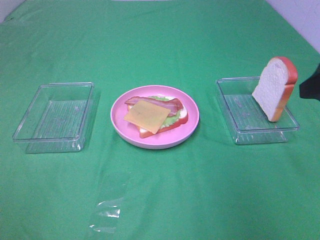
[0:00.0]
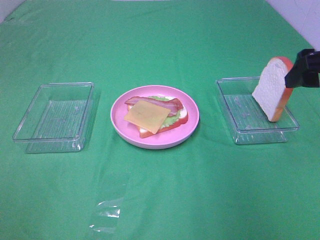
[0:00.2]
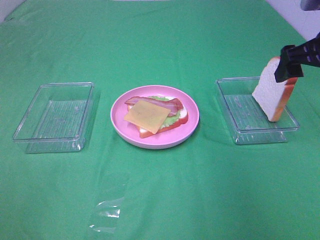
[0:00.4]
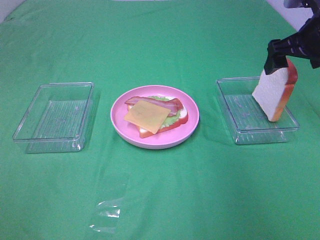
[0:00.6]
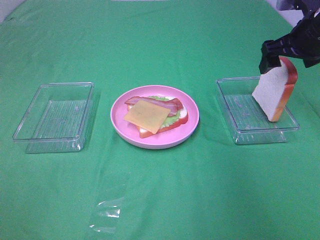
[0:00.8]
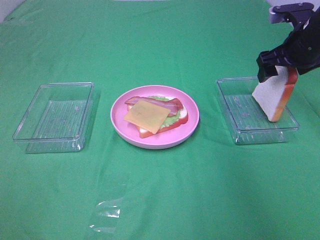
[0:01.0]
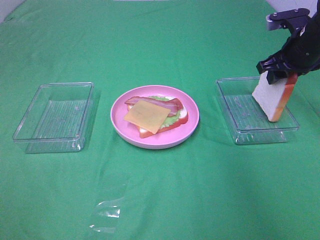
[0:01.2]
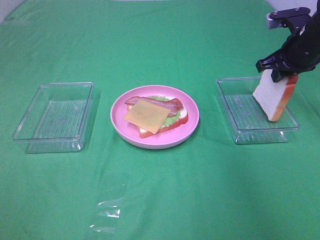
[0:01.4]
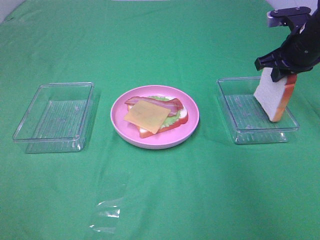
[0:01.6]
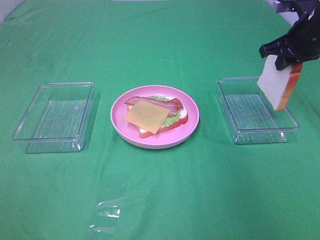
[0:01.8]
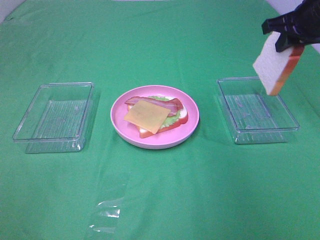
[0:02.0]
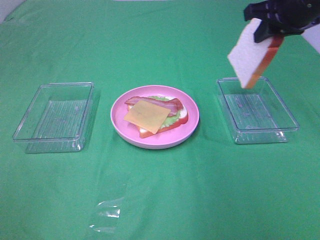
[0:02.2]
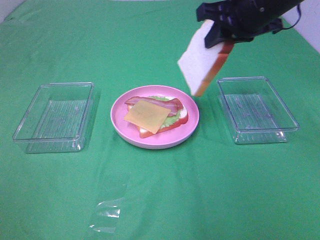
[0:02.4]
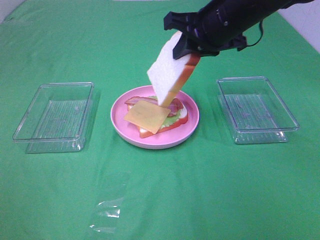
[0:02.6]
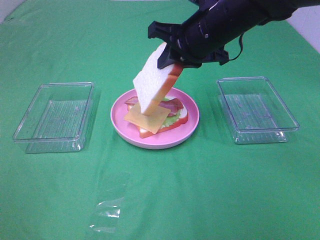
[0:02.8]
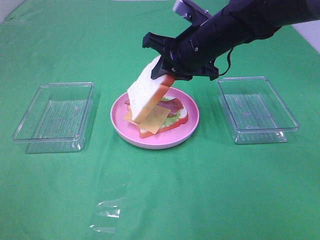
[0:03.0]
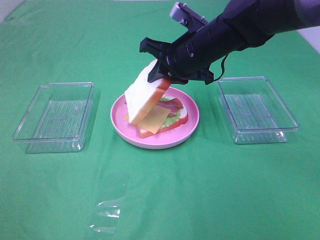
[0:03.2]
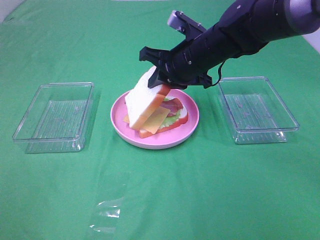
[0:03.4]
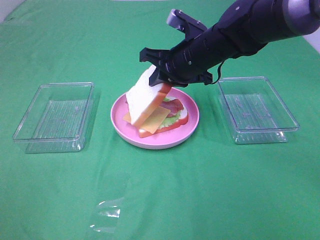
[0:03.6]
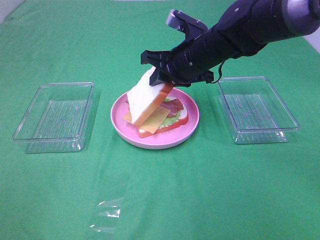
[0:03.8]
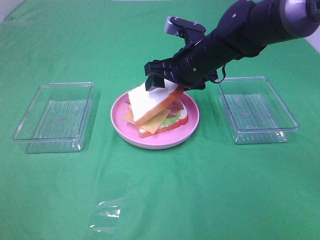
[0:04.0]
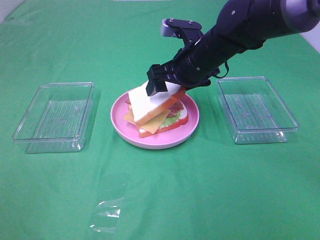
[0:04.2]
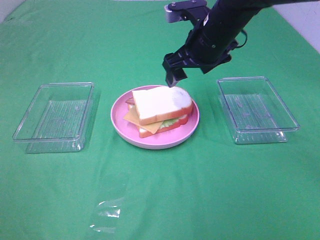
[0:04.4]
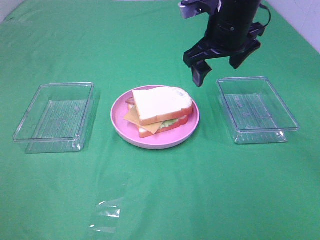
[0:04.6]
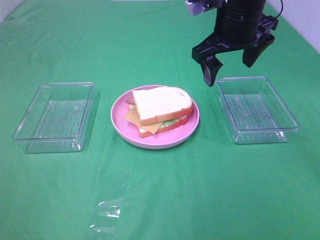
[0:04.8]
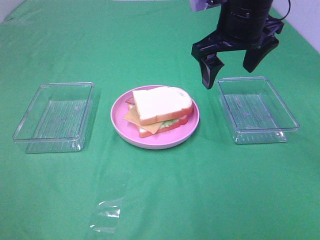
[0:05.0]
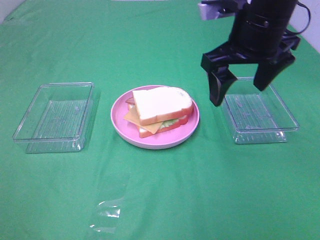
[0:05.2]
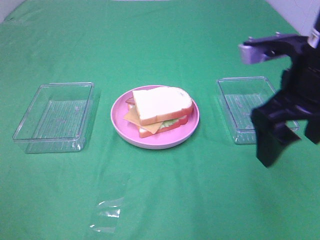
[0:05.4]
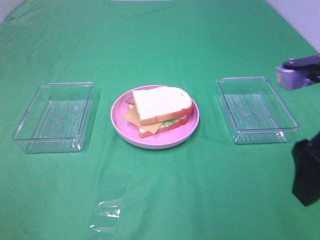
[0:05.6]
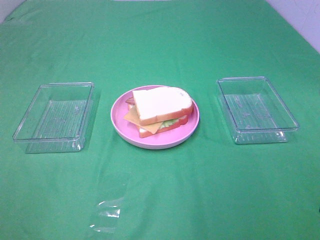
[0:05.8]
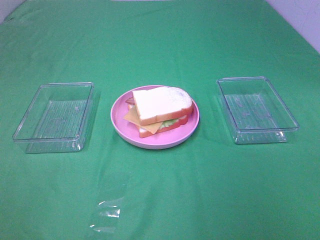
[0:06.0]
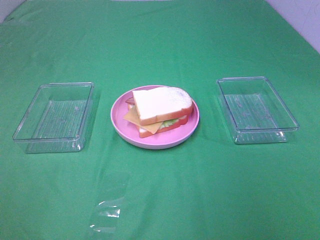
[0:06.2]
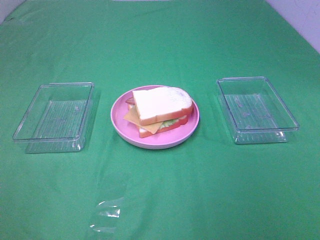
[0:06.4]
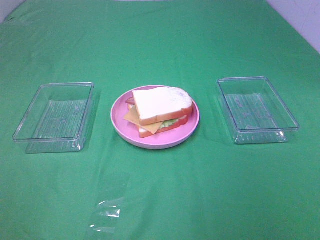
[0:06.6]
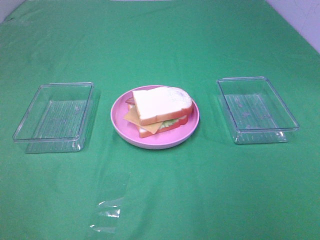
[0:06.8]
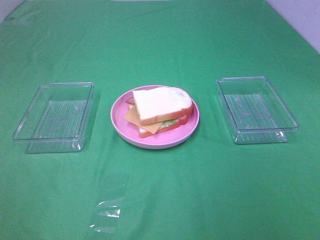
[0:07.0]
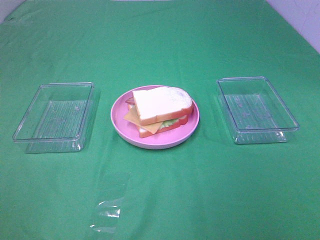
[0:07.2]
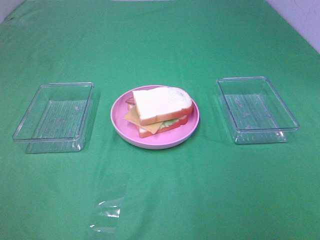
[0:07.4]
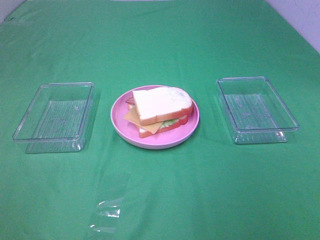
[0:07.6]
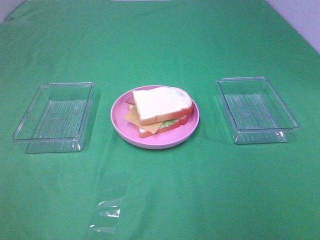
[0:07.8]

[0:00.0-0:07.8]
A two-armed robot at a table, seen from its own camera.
Task of the whole recording: Make sandwiches.
Step, 1.6 to 4.4 s: Right hand:place the bread slice on the cheese slice.
0.0 to 1.6 s: The right gripper moves forward, some 20 cm, and closes its fingers.
1.6 to 3.2 s: The right gripper moves to the left, about 20 cm.
3.2 to 4.6 s: The right gripper moves upward, approximately 5 cm, and opens its fingers.
4.6 to 6.2 s: The right gripper moves backward and to the right, roughly 40 cm.

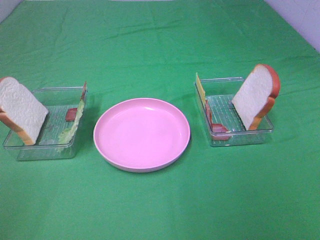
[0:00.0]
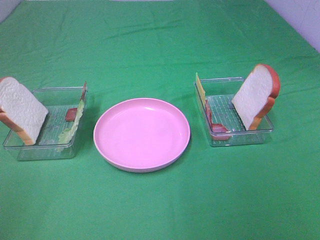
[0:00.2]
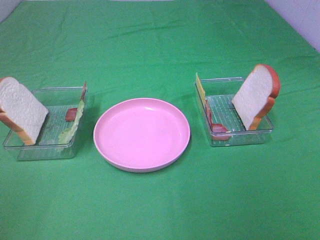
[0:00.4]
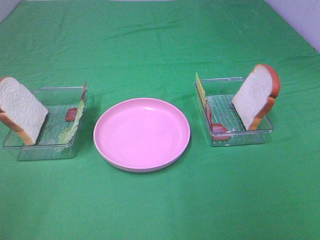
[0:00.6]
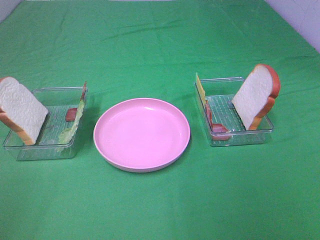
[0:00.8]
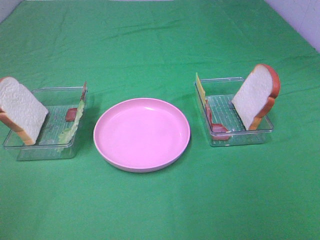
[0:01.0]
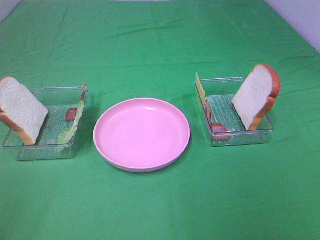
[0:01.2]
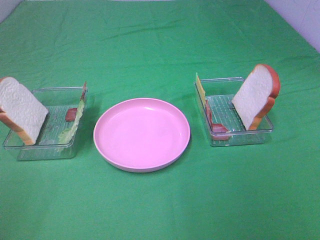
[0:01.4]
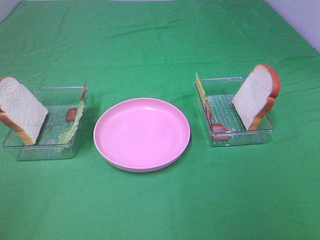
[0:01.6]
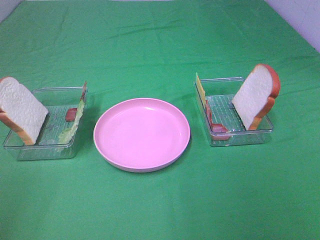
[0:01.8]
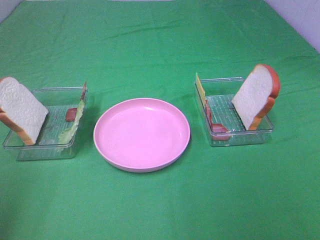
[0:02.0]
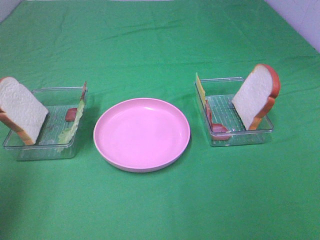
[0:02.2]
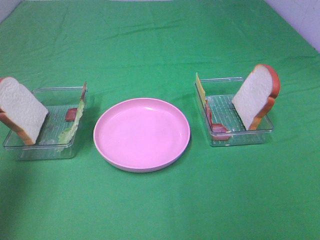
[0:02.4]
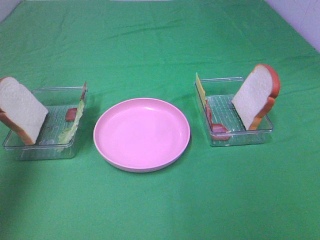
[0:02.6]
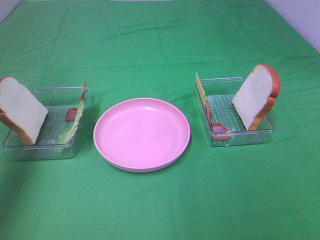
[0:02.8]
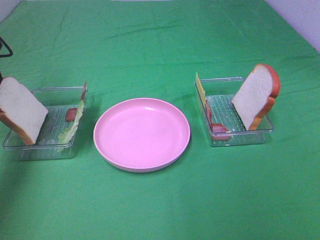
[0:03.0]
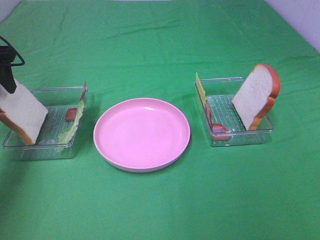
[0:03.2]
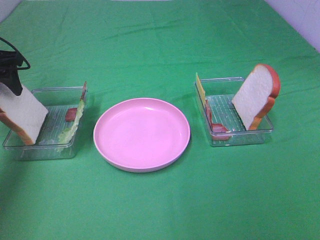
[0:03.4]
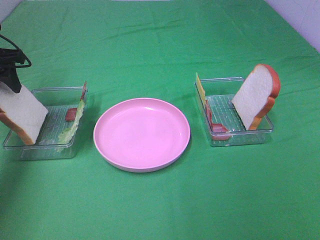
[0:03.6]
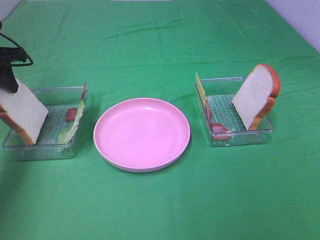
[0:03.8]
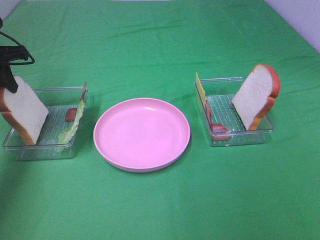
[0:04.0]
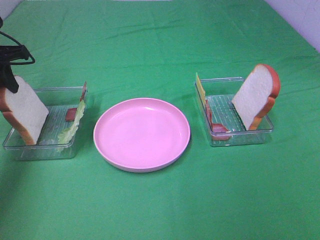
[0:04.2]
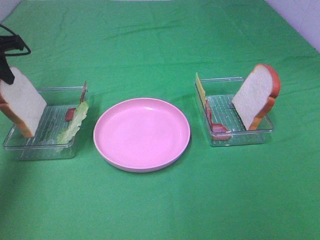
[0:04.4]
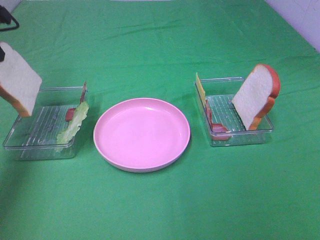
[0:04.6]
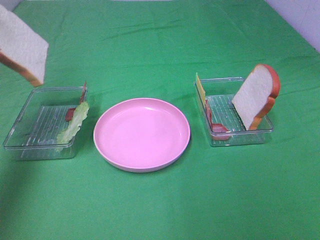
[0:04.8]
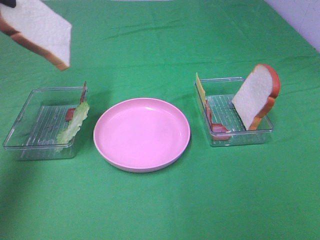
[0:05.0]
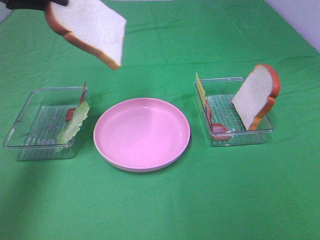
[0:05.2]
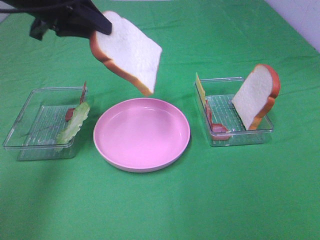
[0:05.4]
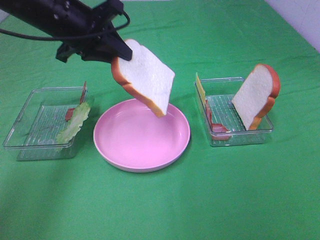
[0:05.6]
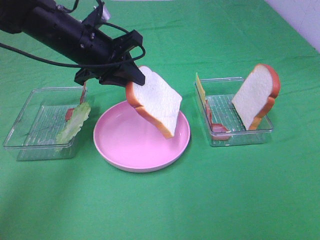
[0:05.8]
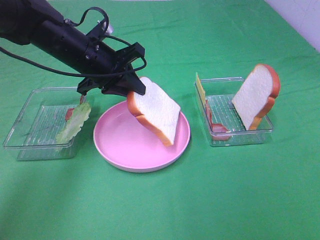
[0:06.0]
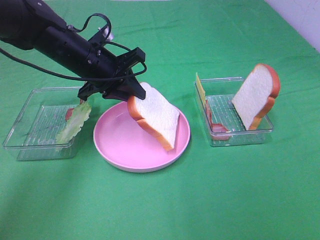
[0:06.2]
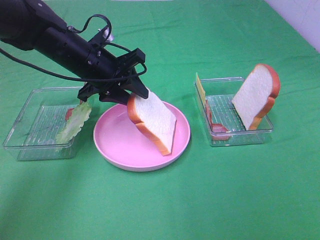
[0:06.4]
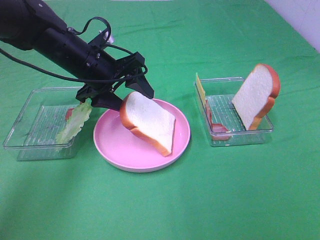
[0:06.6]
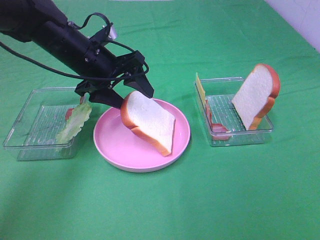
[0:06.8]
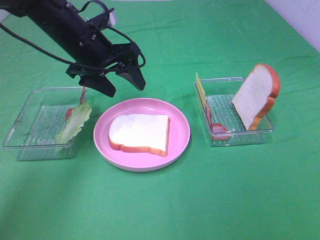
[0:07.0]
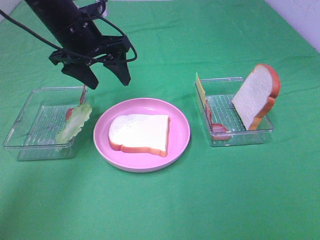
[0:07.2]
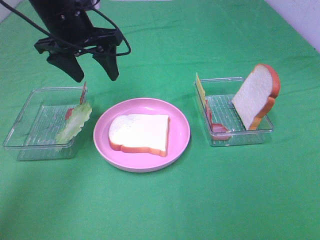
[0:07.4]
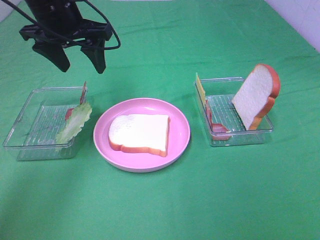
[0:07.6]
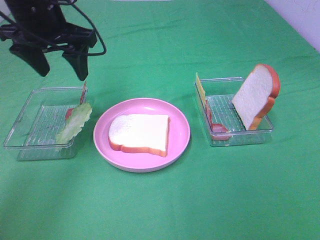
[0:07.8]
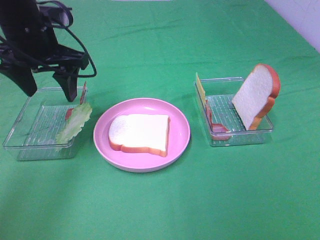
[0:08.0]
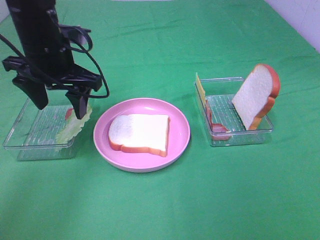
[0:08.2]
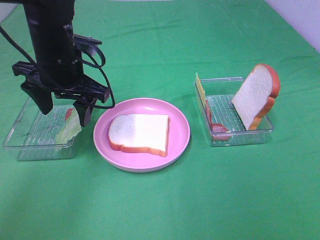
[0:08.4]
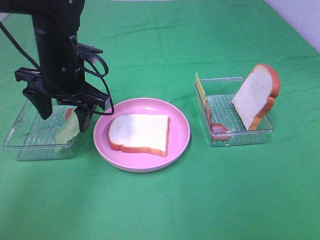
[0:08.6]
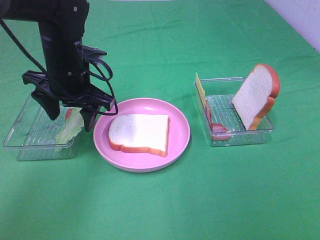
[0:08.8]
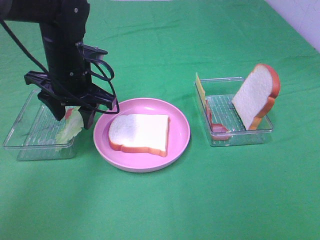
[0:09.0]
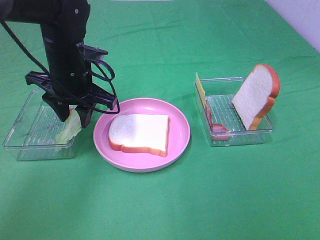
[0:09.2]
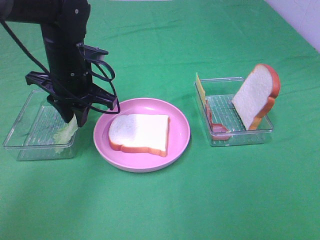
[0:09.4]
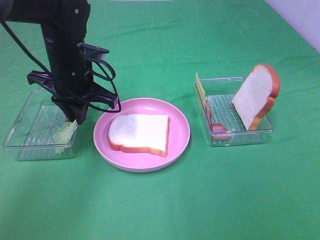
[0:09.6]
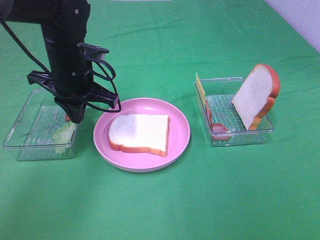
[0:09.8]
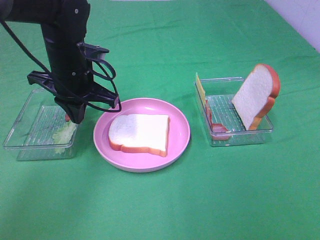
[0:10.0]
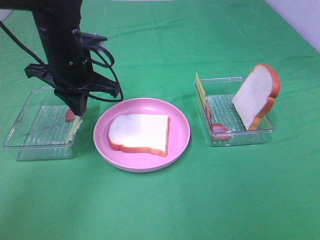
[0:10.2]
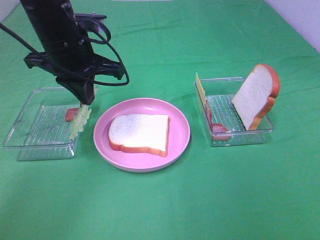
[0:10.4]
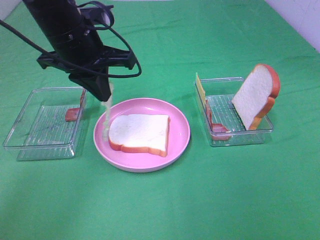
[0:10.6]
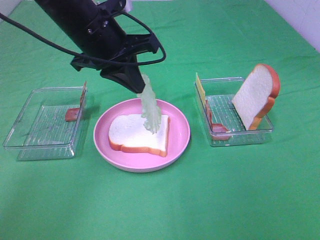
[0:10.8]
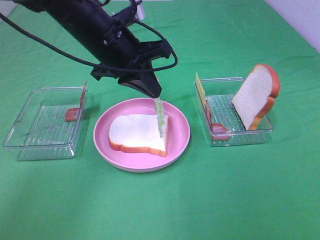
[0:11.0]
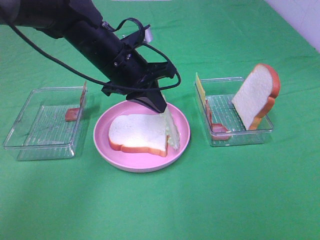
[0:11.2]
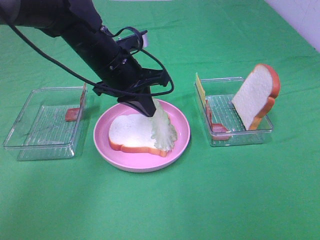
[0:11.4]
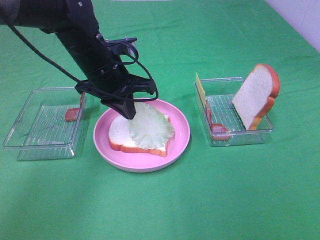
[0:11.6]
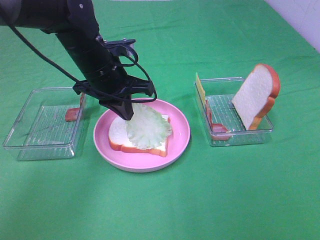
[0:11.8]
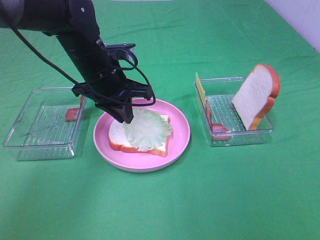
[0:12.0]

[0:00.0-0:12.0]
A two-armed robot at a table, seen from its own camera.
Task of the whole recording: Make sandwiches.
Step, 0.0 to 4.2 s: Left hand:grab the bread slice.
Step, 4.4 to 7.0 s: Left hand:place the bread slice on the plate.
Step, 7.2 to 10.0 s: Left hand:grab the lettuce slice.
0.0 to 1.6 s: The two grippers keep their place.
1.6 to 3.0 s: The left gripper goes approximately 35 cm forward.
3.0 to 4.4 s: The left gripper closes up.
4.4 to 6.0 s: The left gripper heads to the right, covering roughly 20 cm.
6.0 to 7.6 s: The left gripper goes some 10 cm upward, and opens.
7.6 to 9.0 s: The left gripper shifts roughly 10 cm downward.
9.0 to 10.4 s: The left gripper moves upward, roughly 5 cm, and closes its fingers.
10.4 to 12.0 s: The left gripper is displaced downward by roughly 5 cm.

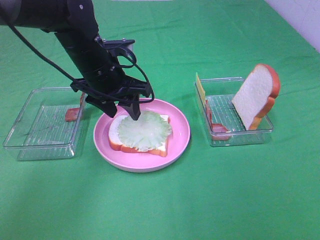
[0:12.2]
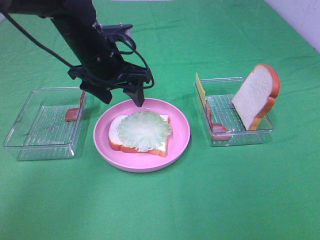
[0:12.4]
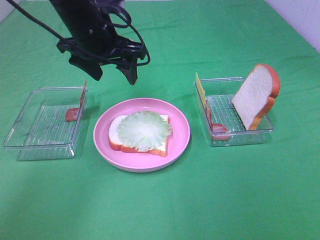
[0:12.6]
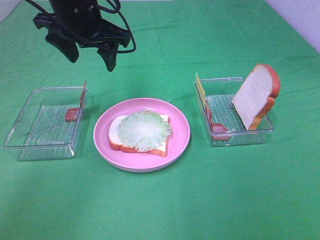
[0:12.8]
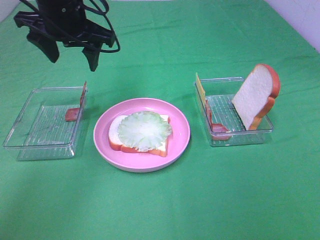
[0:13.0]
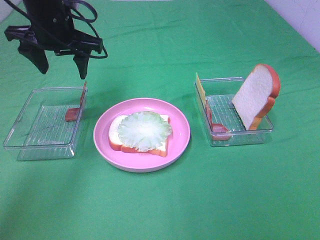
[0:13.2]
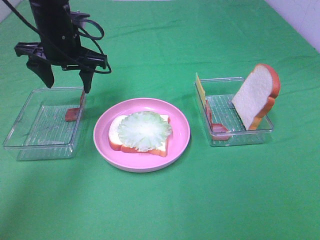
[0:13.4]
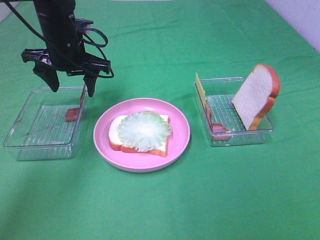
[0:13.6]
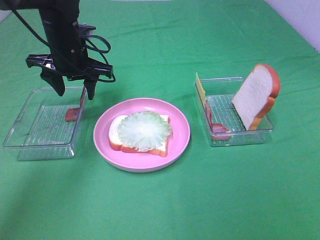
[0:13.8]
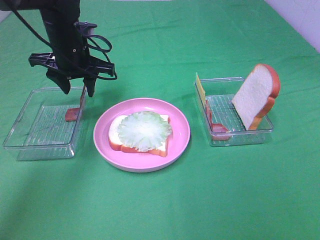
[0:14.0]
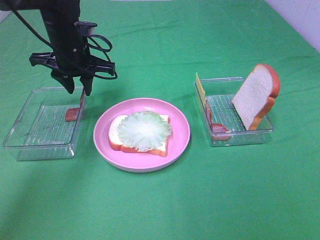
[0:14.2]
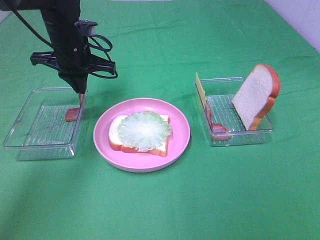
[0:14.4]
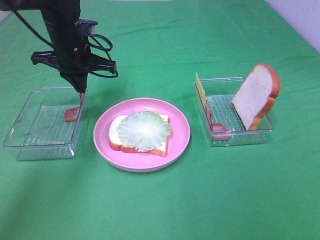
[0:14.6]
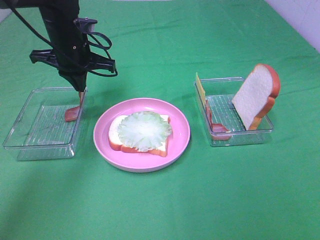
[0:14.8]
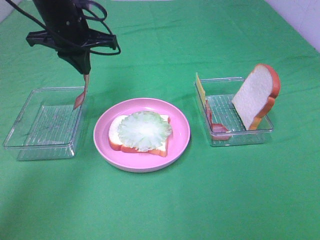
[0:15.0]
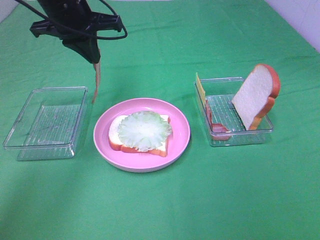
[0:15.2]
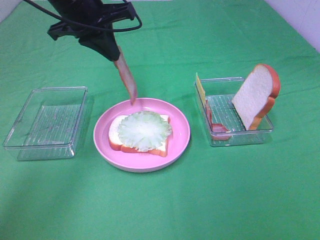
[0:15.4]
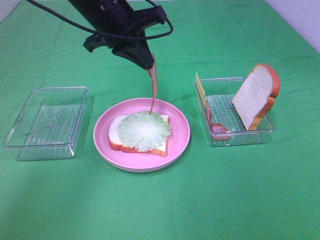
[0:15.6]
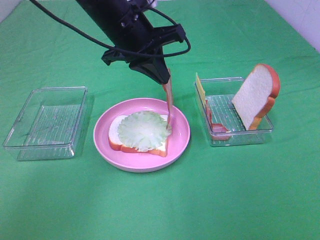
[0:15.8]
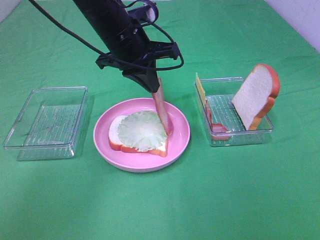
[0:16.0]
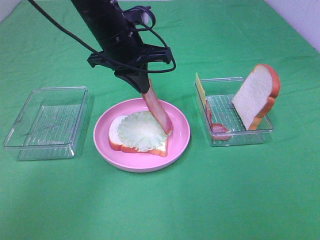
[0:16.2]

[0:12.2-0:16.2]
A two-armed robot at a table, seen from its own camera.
Task of the whole recording: Make sandwiches.
Step, 12.4 to 14.6 s: Left hand:grab the bacon.
12.2 to 13.6 s: The left gripper is displaced to the left and forward by some 10 cm, and travels upward and back again, roughly 10 cm each way.
13.6 to 14.8 s: The left gripper closes up.
14.8 to 16.2 s: The left gripper is displaced to the right by roughly 10 cm.
